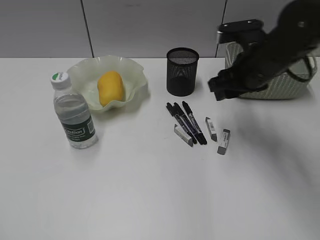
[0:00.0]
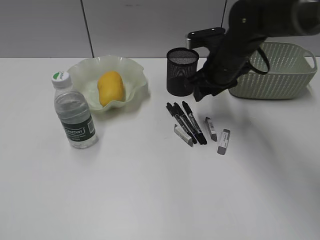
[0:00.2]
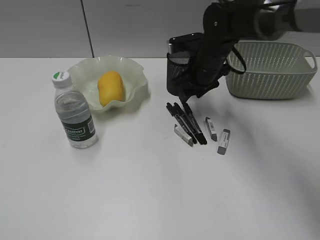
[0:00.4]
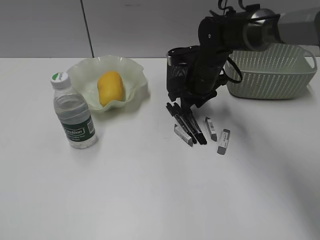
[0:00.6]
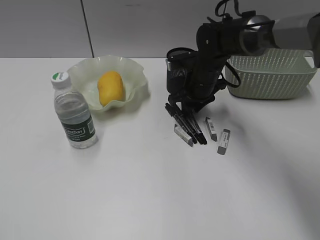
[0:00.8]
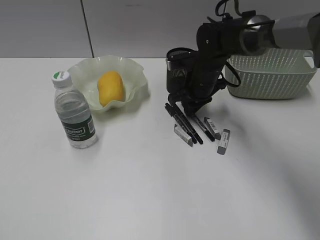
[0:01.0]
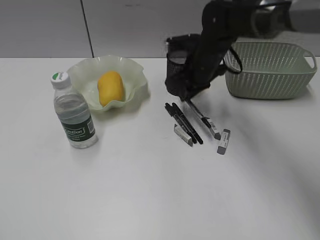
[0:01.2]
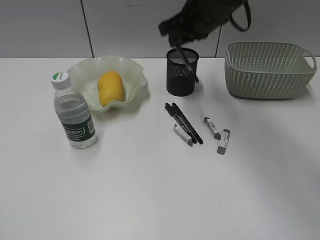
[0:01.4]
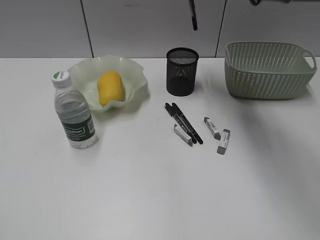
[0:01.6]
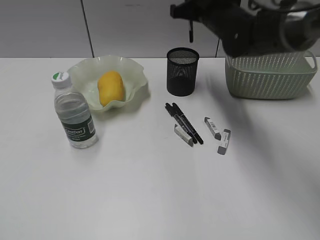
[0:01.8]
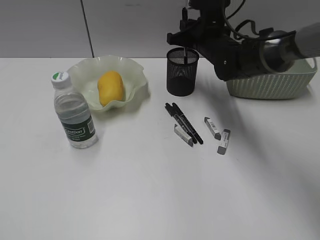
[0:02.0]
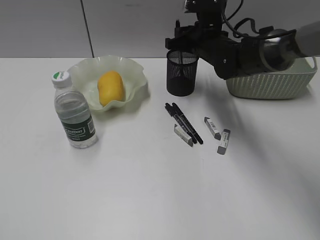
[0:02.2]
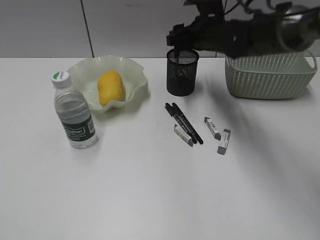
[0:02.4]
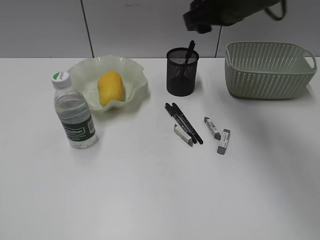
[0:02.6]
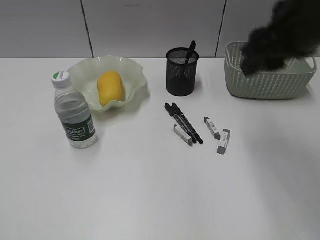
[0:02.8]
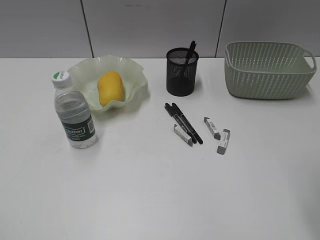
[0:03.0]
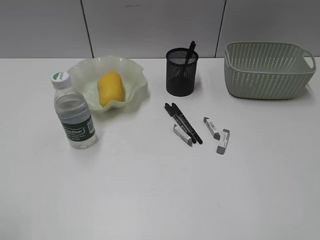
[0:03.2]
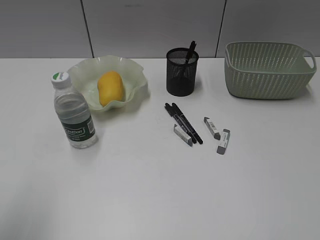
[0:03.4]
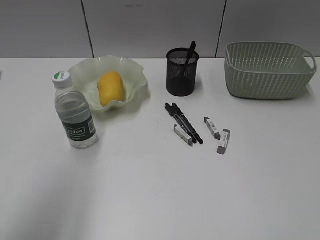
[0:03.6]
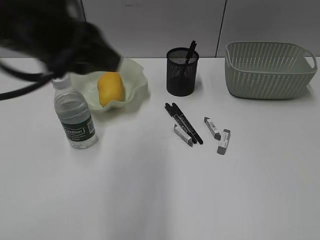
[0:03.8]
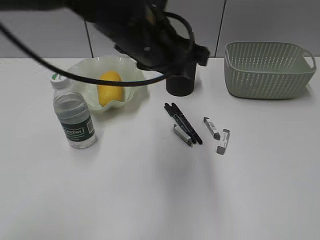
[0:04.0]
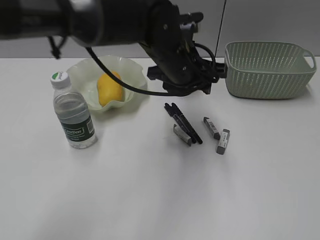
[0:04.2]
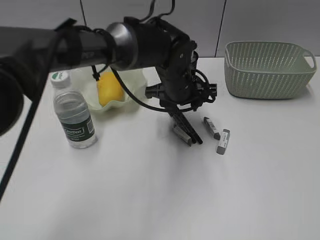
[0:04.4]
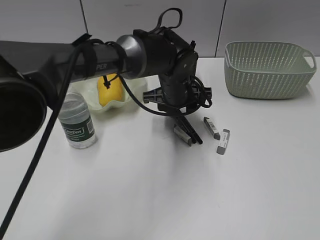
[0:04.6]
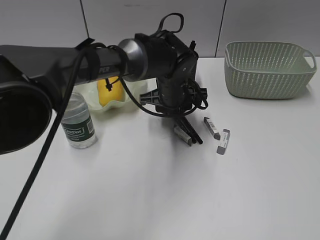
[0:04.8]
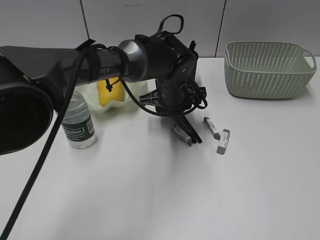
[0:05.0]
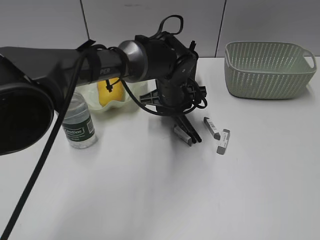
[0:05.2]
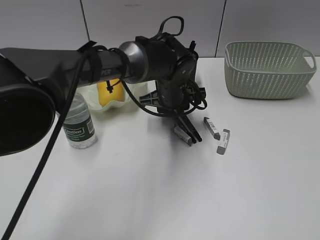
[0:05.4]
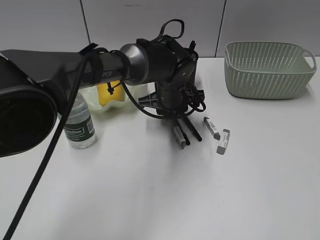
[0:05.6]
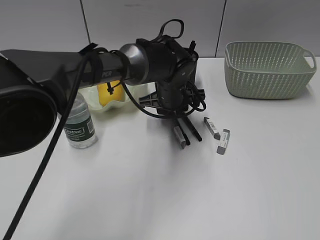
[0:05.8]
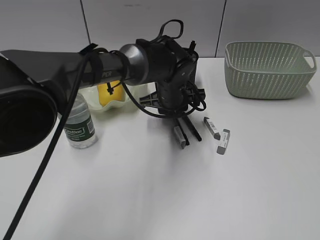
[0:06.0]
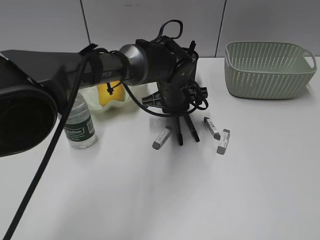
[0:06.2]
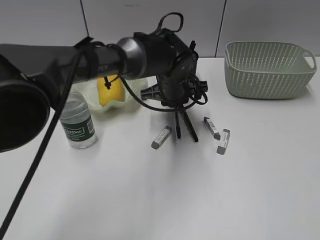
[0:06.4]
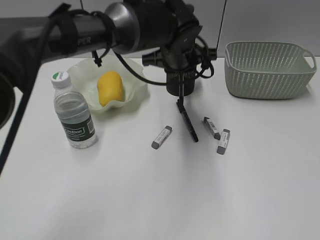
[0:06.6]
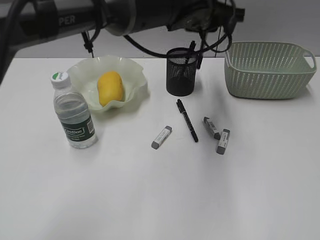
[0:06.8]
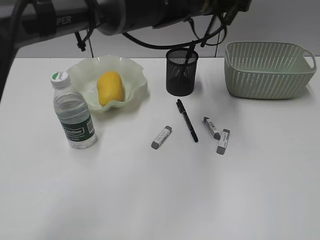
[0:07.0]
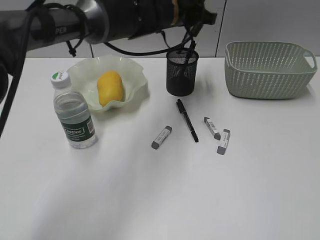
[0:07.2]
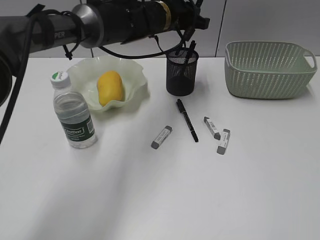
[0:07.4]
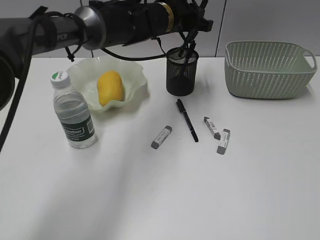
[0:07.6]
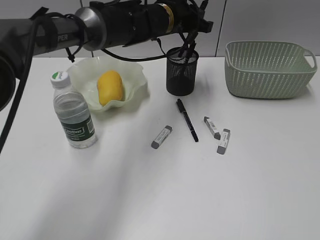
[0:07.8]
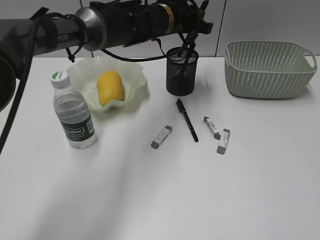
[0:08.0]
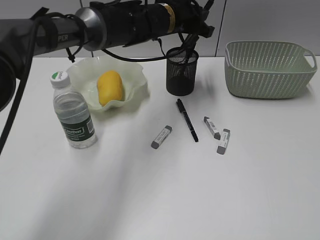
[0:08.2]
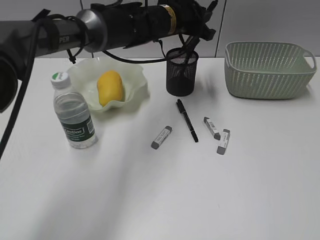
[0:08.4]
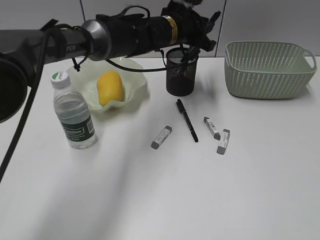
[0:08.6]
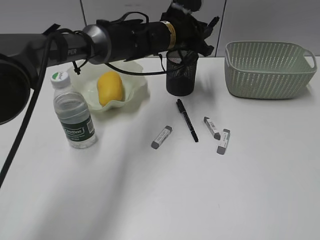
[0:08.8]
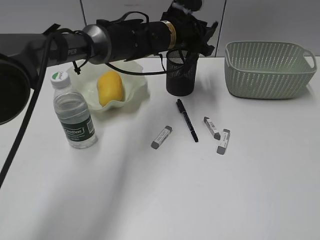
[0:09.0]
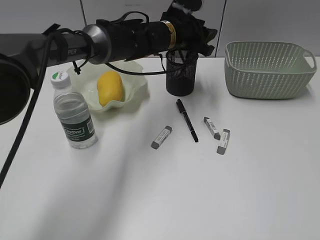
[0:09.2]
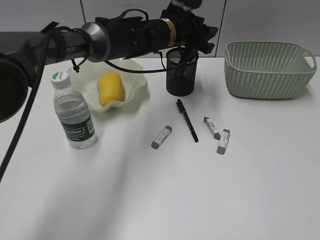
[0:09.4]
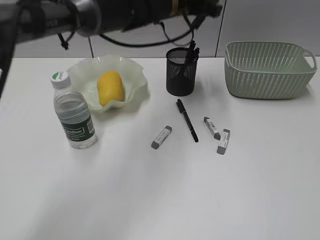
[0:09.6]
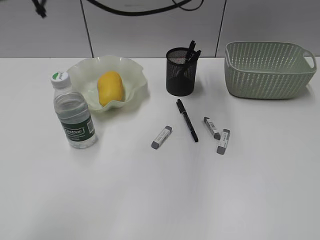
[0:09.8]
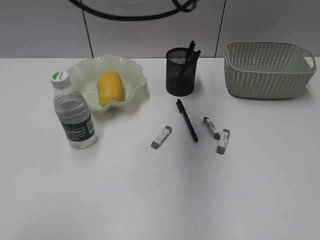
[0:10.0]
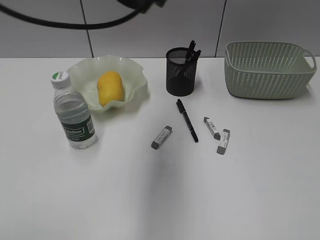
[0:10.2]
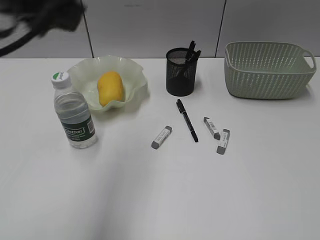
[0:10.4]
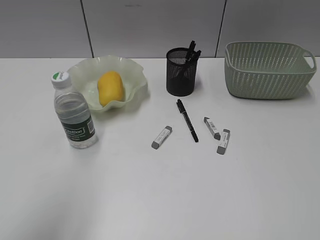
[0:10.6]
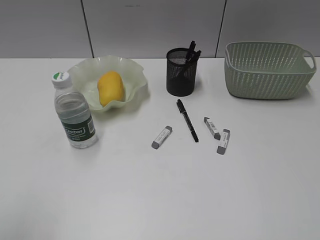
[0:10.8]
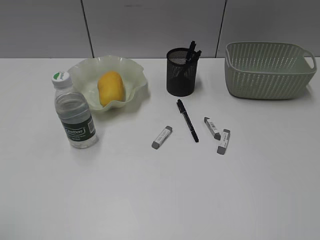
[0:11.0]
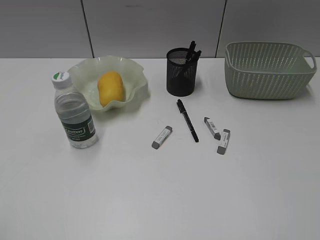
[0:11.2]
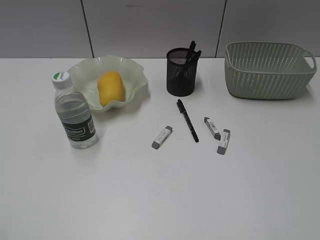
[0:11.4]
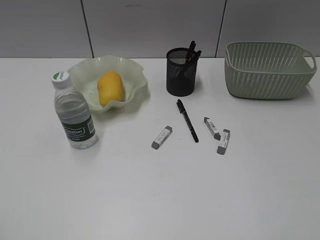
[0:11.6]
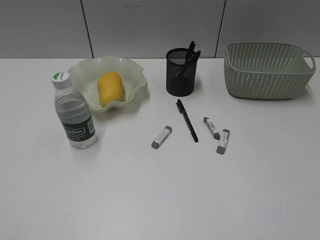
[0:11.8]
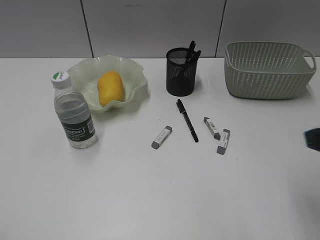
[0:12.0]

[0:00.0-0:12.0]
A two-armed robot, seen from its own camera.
Step, 1.2 to 2.4 s: Place the black pen in pen holder with right gripper.
Step, 2.6 to 6.2 s: Grasp the black pen with left gripper.
Step, 6.4 to 9.4 s: Place the black pen in pen holder with left gripper.
0.0 to 1.6 s: The right gripper is displaced upward and forward by about 10 cm, and closes its fingers.
1.6 to 3.0 s: The right gripper travels backward and to the right by some 30 cm, and opens.
3.0 to 4.4 s: The left gripper goes some 50 cm to the right and forward; the right gripper is displaced backward and to the right by roughly 15 cm.
4.4 to 6.0 s: The left gripper closes its fingers.
6.0 to 7.6 s: The left gripper heads upward and forward, covering some 15 cm.
7.6 to 9.0 s: The grippers move only a little.
9.0 to 10.4 s: The left gripper moves backward, to the left and upward, about 40 cm.
10.4 to 12.0 s: The right gripper moves forward and to the left, some 15 cm. Meanwhile the left gripper shifts about 30 cm backward, to the left and downward, and opens.

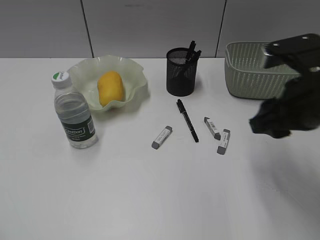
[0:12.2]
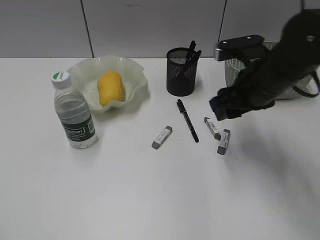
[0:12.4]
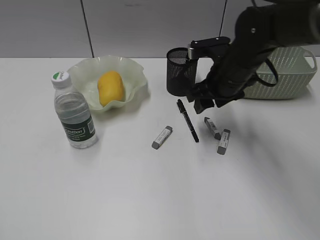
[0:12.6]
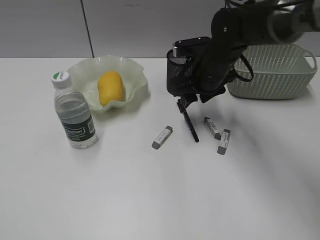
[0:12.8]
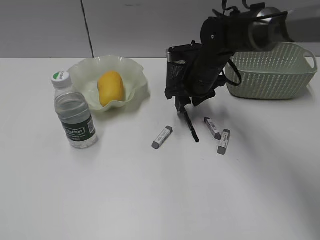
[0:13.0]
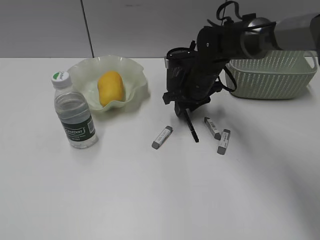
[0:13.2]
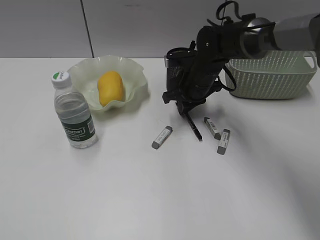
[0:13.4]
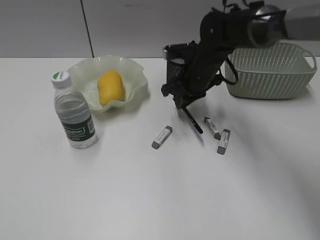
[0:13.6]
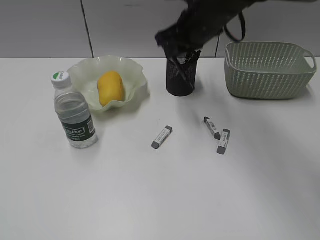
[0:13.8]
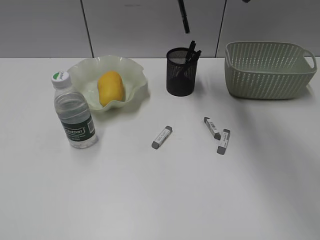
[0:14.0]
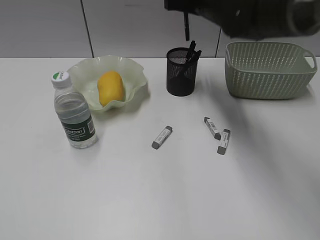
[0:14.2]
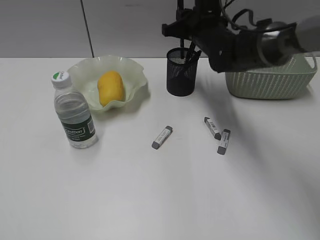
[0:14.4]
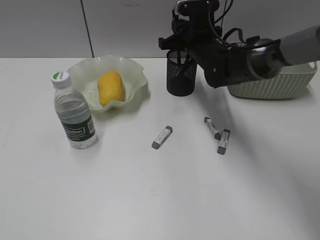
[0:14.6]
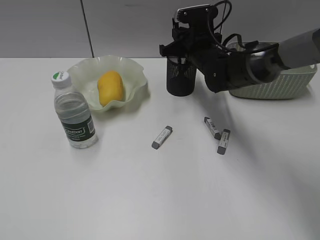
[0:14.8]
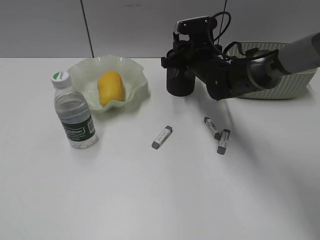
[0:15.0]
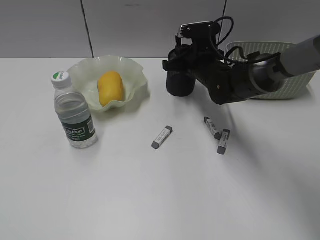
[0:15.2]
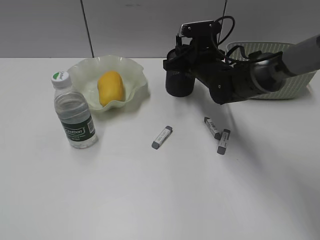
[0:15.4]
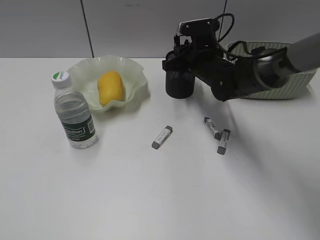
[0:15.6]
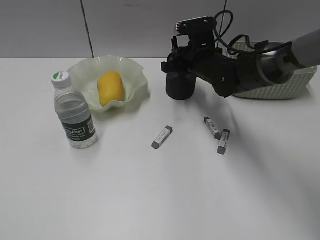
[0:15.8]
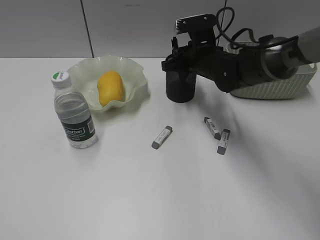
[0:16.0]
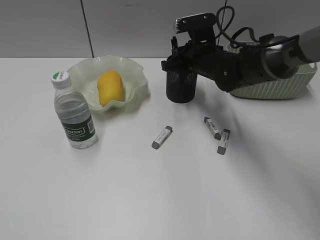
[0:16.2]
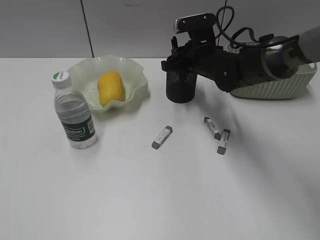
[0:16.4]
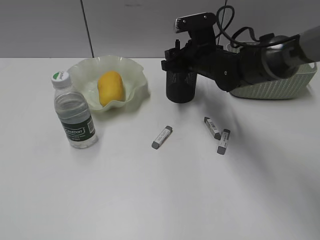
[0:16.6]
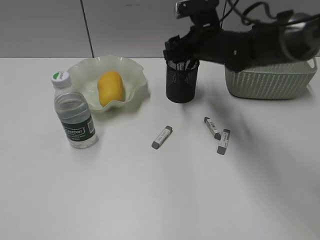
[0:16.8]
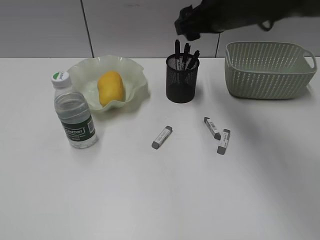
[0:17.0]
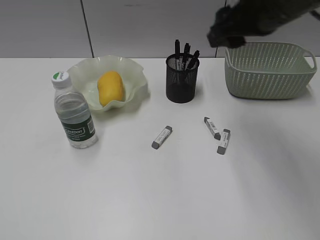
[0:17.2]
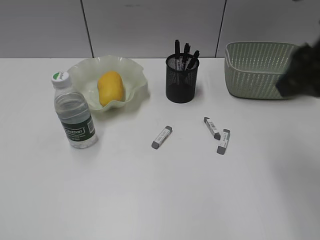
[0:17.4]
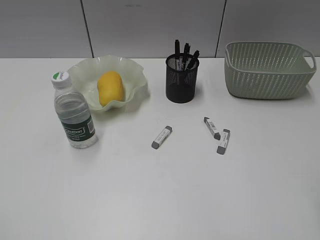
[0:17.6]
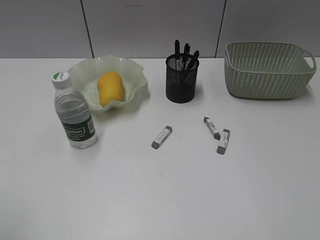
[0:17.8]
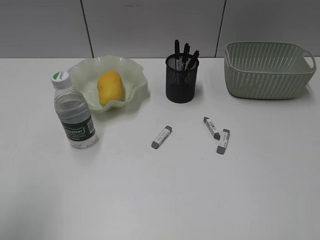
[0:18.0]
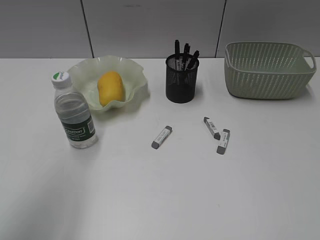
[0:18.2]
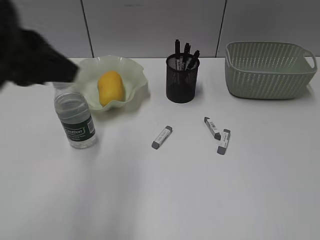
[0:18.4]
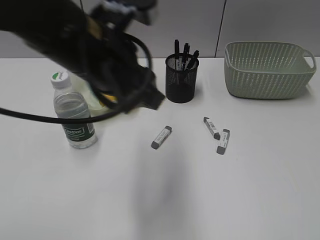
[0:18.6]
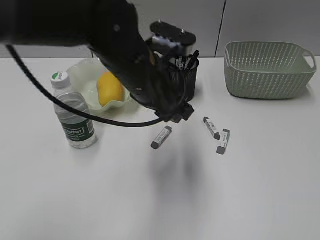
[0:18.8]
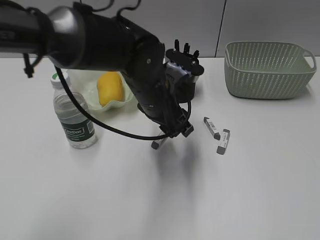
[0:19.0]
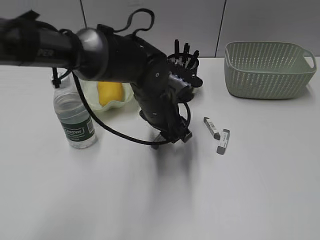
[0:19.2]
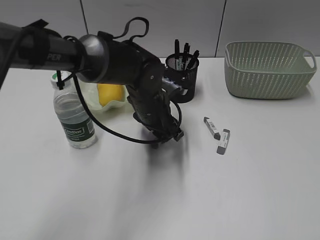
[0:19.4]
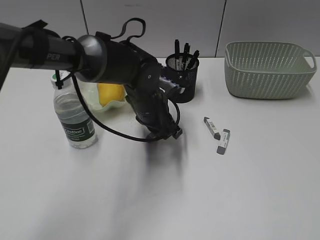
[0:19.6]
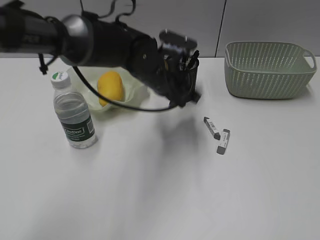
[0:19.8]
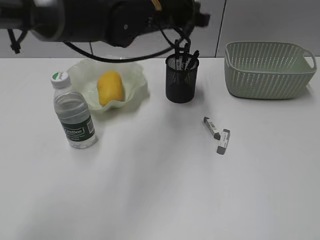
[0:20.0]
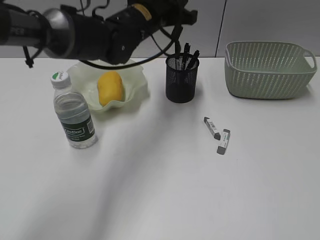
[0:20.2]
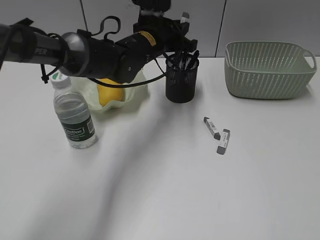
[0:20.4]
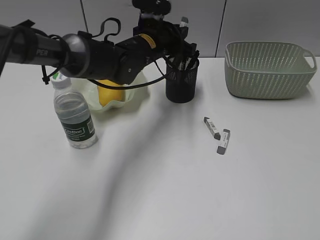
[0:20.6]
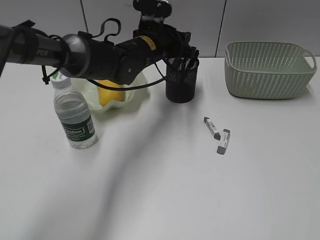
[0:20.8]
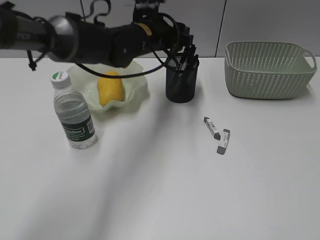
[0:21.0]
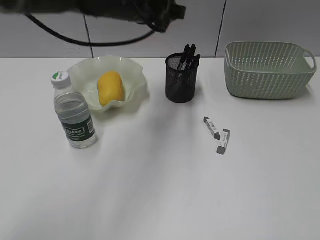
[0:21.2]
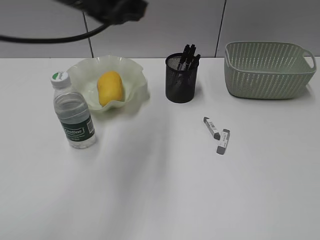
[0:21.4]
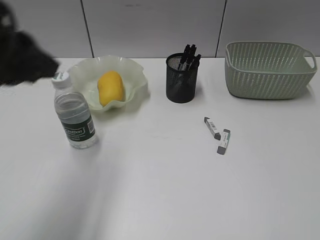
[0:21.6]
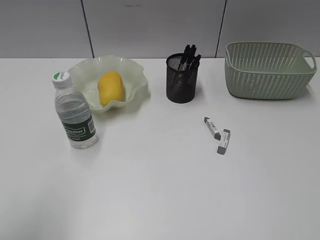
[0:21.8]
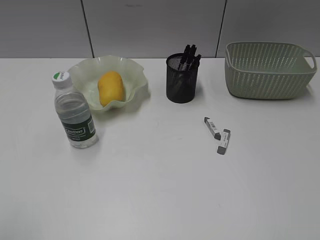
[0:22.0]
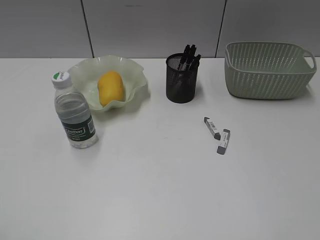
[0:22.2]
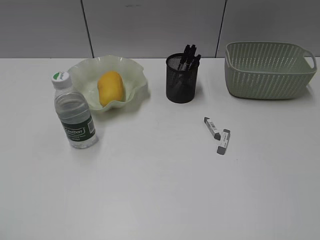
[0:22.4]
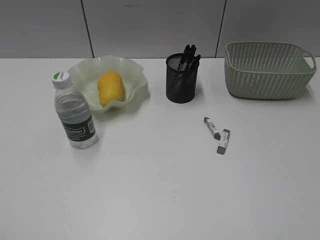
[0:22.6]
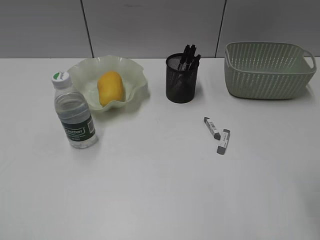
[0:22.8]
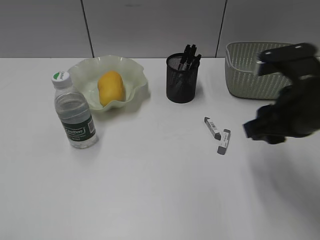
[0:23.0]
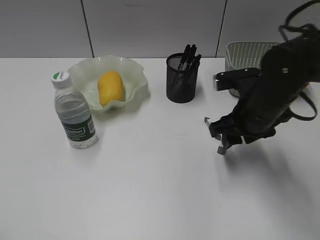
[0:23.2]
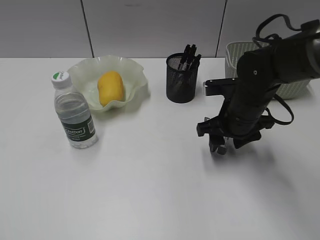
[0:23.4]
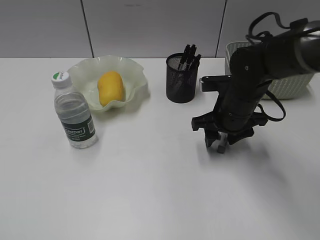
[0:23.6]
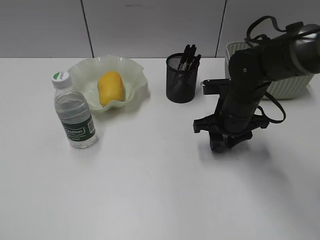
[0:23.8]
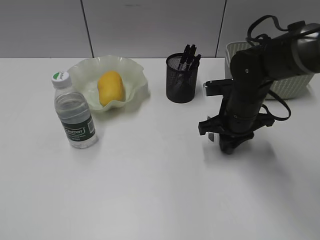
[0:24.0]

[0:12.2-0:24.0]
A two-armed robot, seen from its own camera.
Step, 13.6 to 16.6 s: Place the black pen in pen holder with right gripper.
Step, 16.8 to 19.6 s: Grasp the eraser with left gripper.
Step, 19.8 to 21.0 s: Place the eraser in pen holder with left gripper.
Step, 21.2 to 24.0 s: Grasp the eraser with right gripper.
12.2 to 13.6 s: The right gripper goes some 25 cm forward, to the left and downward, and closes. The left gripper closes up.
13.6 to 15.2 s: The right gripper goes upward and returns, about 15 cm each way.
15.2 to 16.6 s: The right gripper opens.
16.6 to 18.2 s: The left gripper shifts some 20 cm forward and to the right; the right gripper shifts about 50 cm backward and to the right.
18.2 to 19.6 s: The left gripper moves to the right, downward and forward, roughly 40 cm.
19.6 to 21.0 s: The left gripper goes up and down, roughly 15 cm each way, reversing 2 times, and opens up.
21.0 to 22.6 s: The left gripper shifts approximately 50 cm backward and to the left.
22.6 to 24.0 s: The right gripper goes about 40 cm forward, downward and to the left, and opens, then closes once more.
